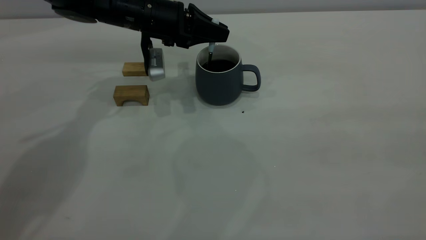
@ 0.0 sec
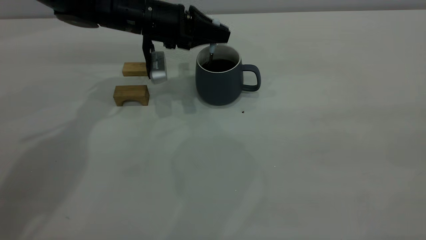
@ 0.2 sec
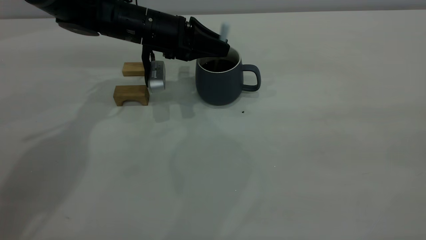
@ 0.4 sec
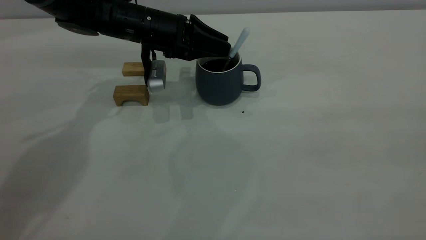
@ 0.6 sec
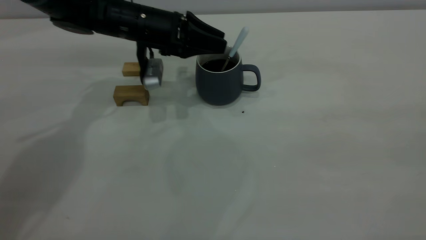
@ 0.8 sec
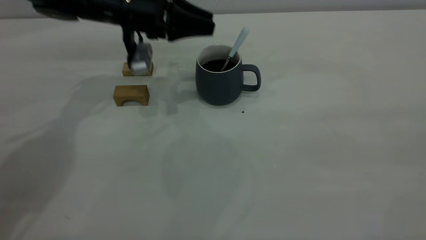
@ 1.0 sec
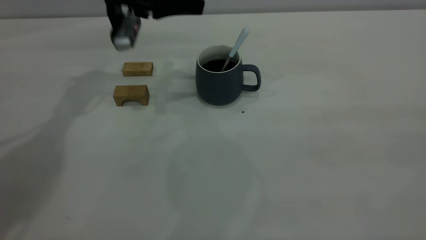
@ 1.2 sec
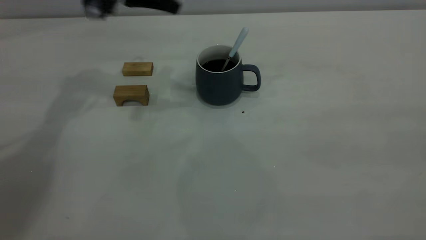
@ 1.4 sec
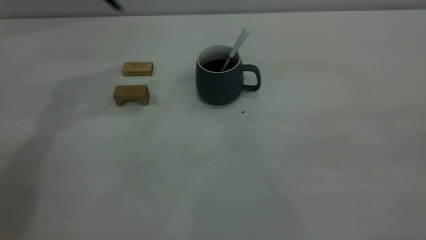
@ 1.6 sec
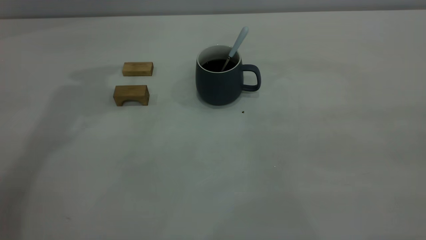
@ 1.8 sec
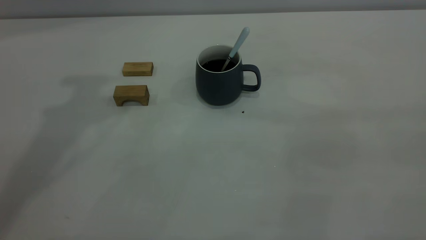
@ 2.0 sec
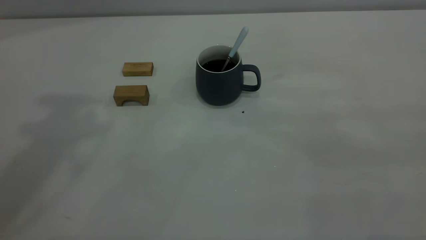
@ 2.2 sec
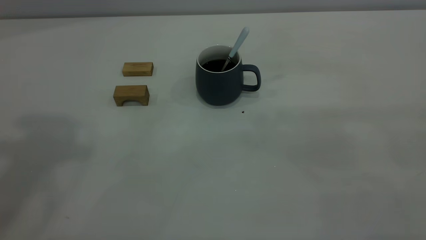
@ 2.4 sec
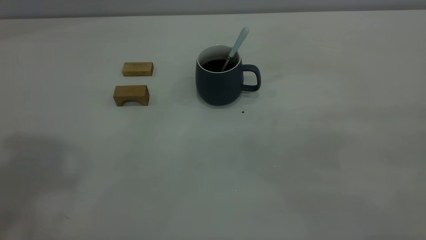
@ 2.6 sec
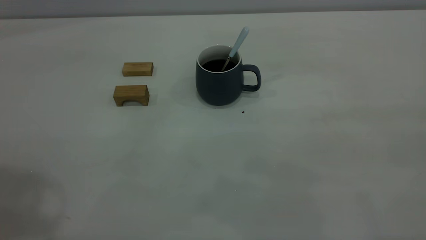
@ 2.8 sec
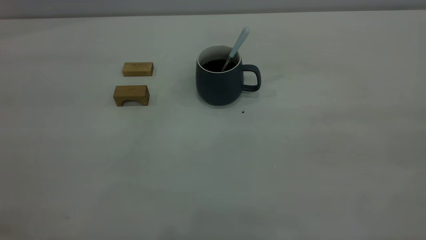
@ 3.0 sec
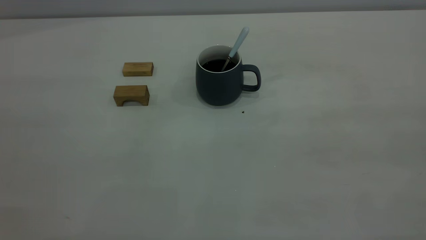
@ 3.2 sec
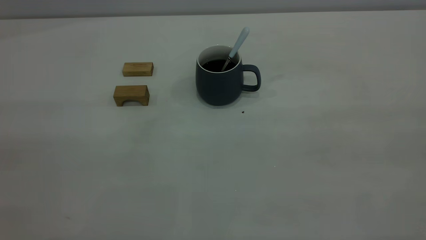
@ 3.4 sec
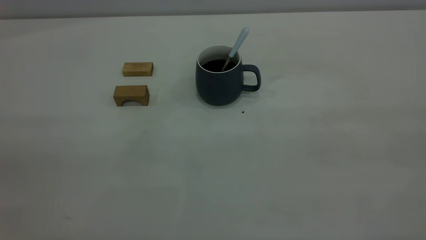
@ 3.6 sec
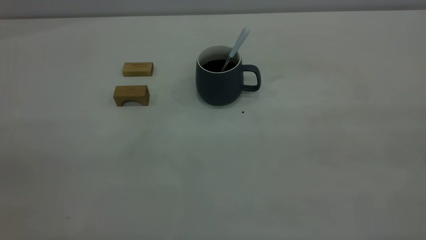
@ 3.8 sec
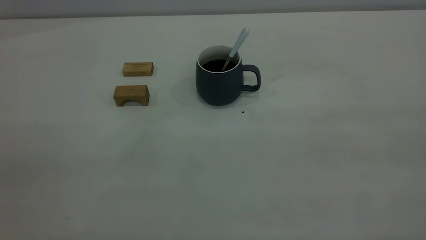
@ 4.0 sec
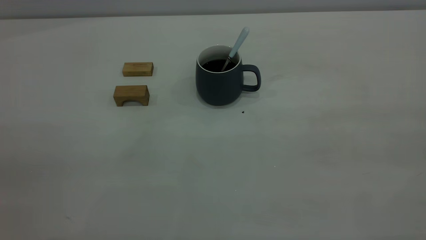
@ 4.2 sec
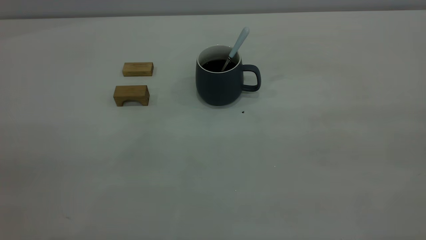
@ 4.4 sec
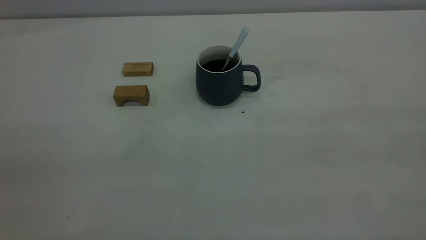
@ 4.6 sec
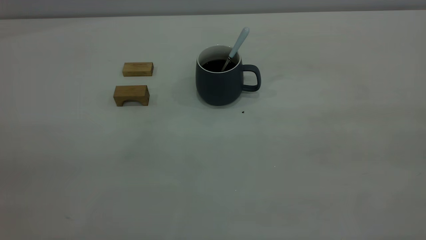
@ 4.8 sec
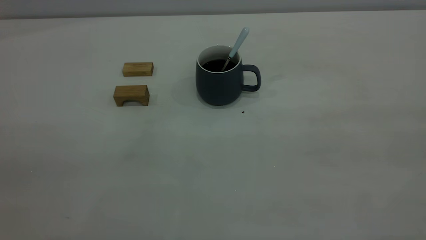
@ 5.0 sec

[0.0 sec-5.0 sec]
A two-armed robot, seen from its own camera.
0.0 sec to 1.6 sec: The left gripper travels upward by about 20 cm, and opens up.
1.6 sec to 3.4 sec: The left gripper heads backward, covering some 40 cm.
